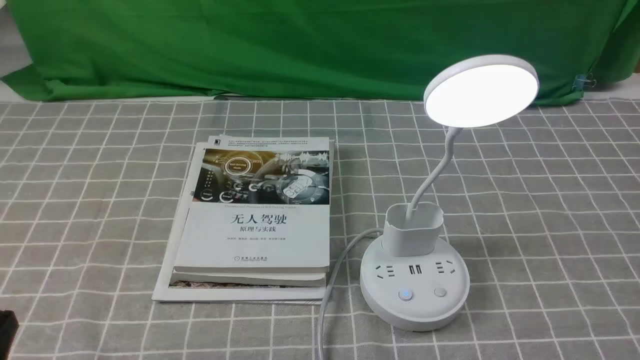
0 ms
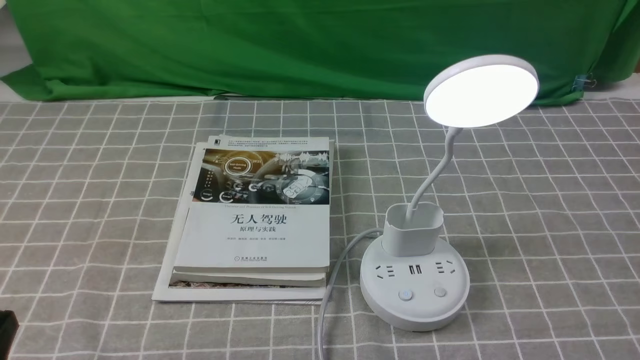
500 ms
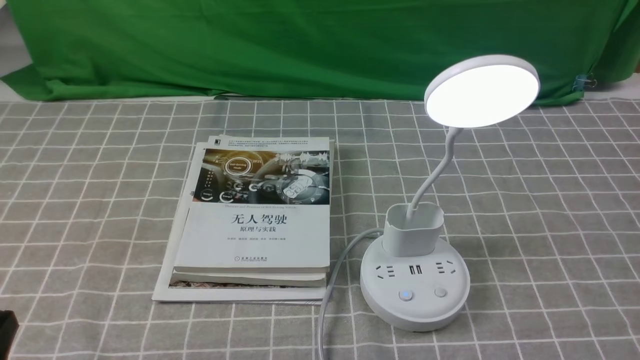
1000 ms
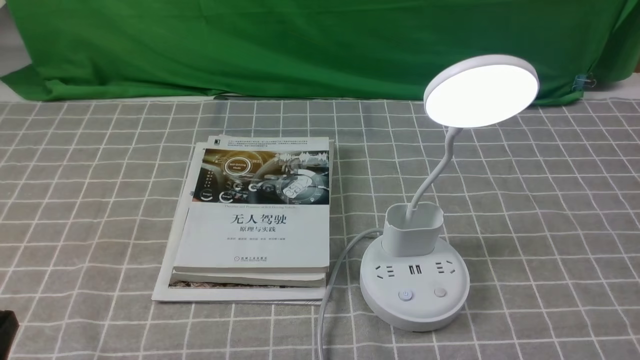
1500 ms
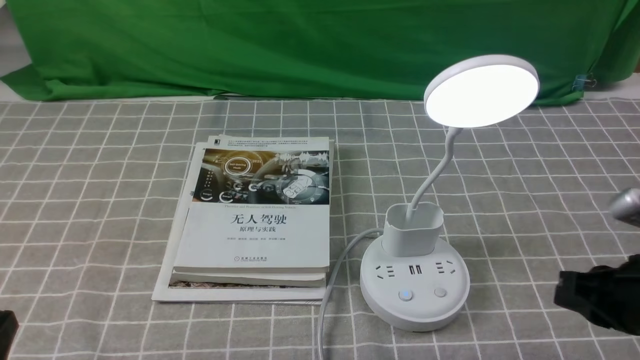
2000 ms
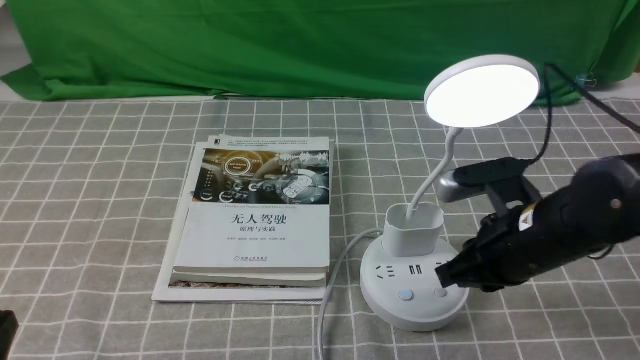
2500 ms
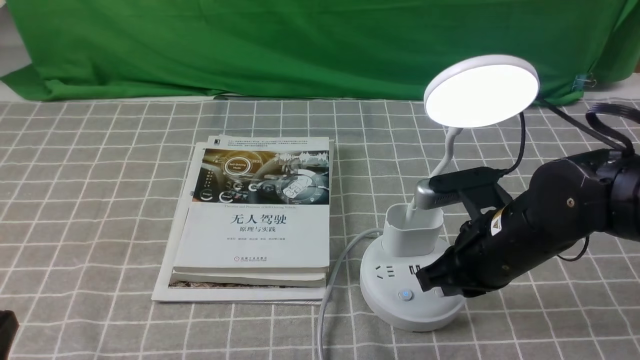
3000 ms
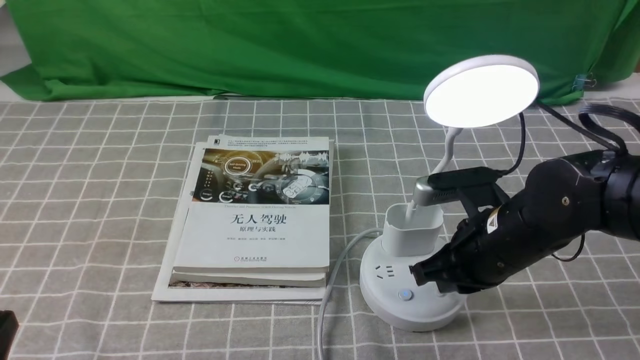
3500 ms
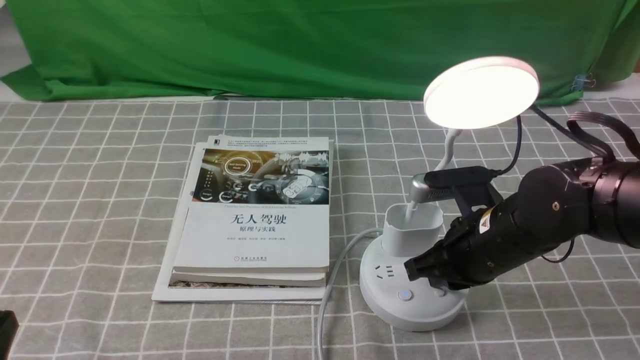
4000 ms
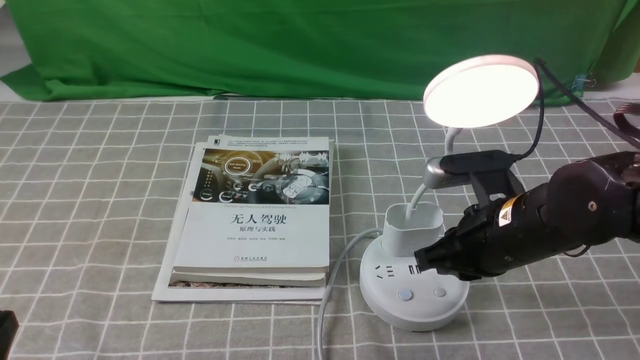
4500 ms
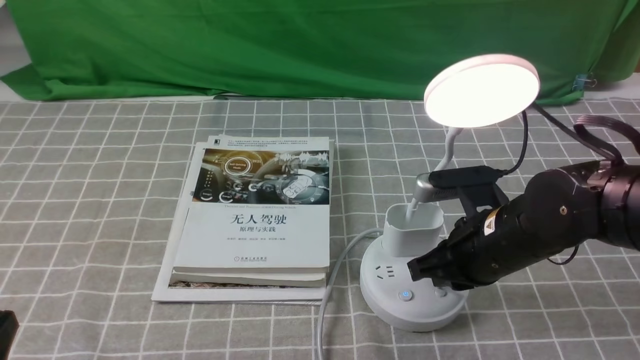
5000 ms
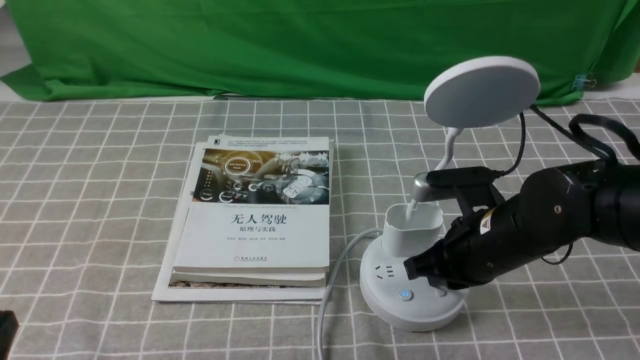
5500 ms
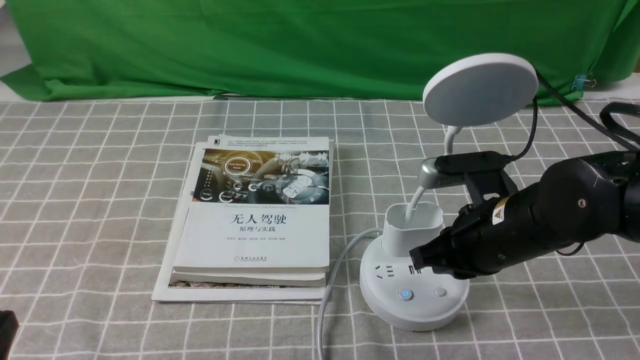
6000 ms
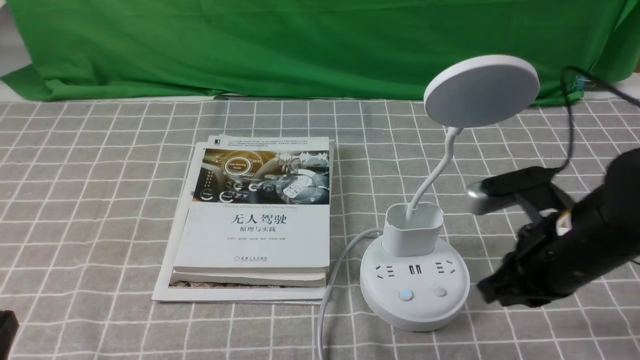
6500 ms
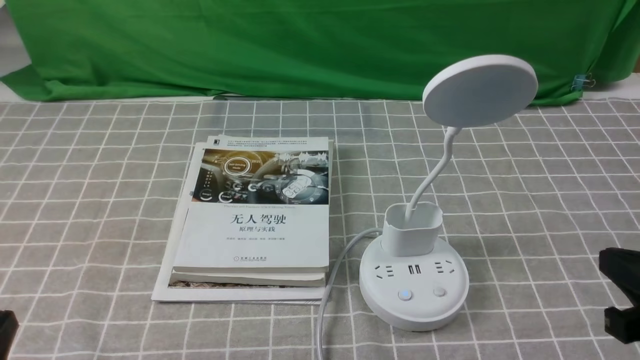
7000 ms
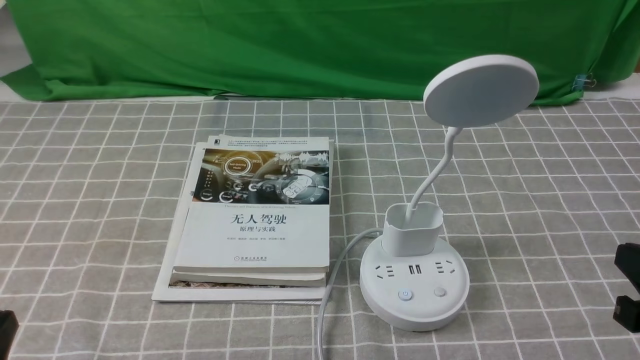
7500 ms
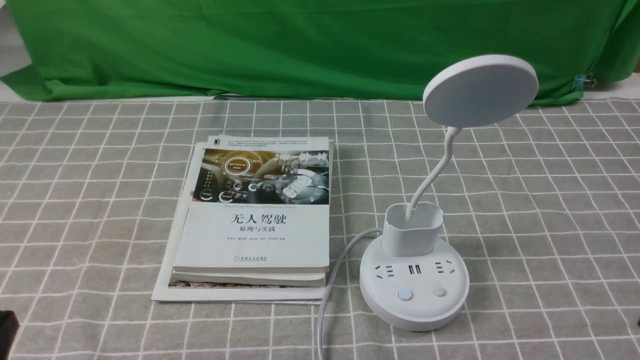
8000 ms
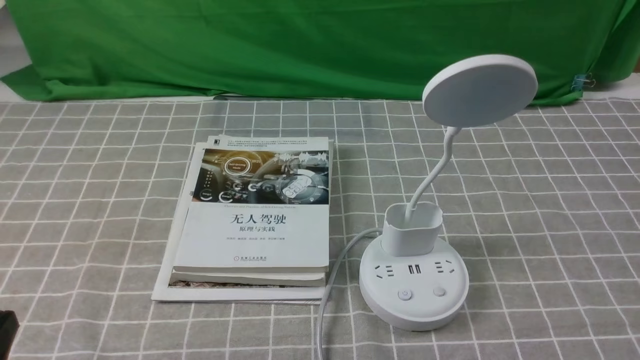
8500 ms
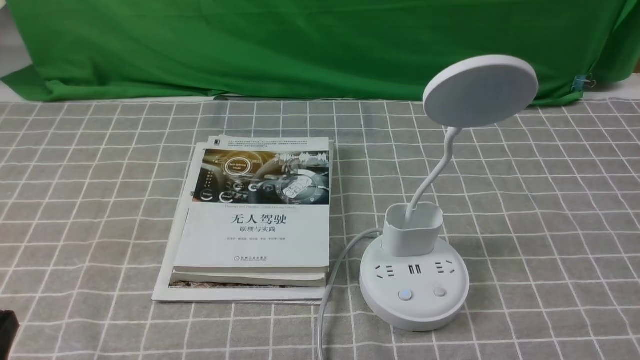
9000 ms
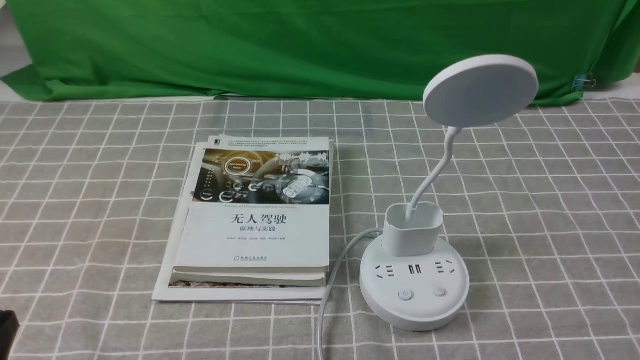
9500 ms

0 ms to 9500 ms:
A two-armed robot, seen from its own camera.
Task of the whole recording: turn off the desk lamp on the grey coffee tablecloth by hand.
Step, 0 ms to 5500 ms: use the right arm to press the button switch on the lamp holder.
0 ms to 2000 ms: The right gripper moves forward, approximately 15 cm, and closes.
2000 ms to 4000 ms: The right gripper moves to the left and forward, roughly 15 cm.
4000 ms to 5500 ms: The grippers stay close to where they were, moving slightly.
5500 ms to 7500 ms: The right gripper goes approximately 20 cm to the right, backward and upward.
7500 ms to 9500 ms: The right gripper travels backward and downward by about 10 cm.
